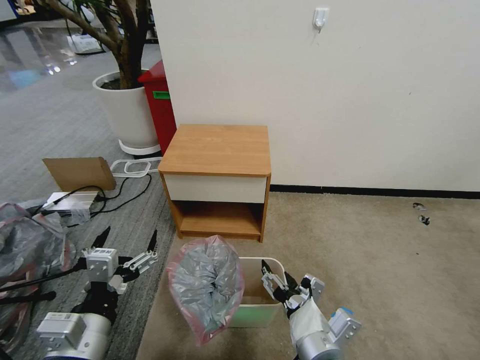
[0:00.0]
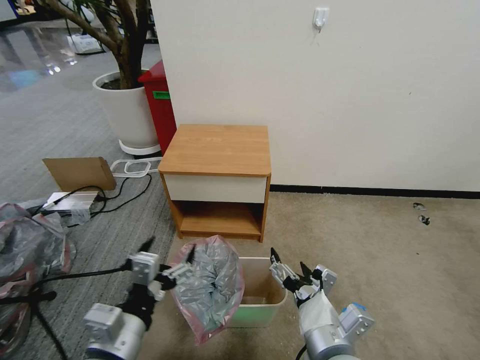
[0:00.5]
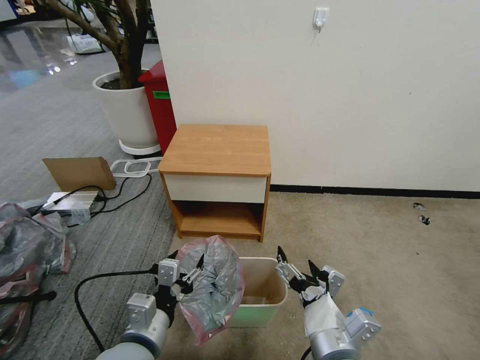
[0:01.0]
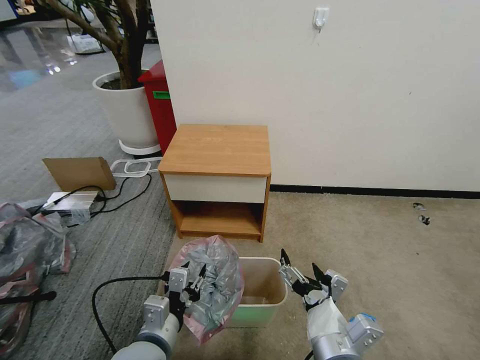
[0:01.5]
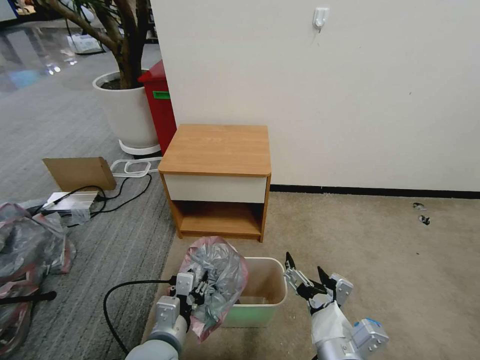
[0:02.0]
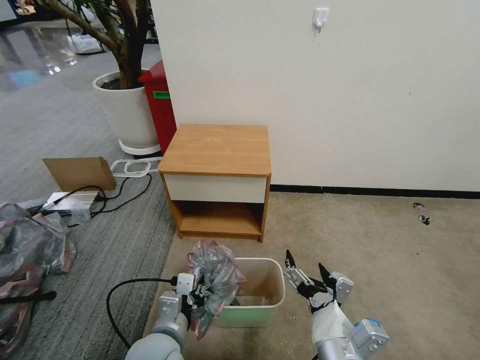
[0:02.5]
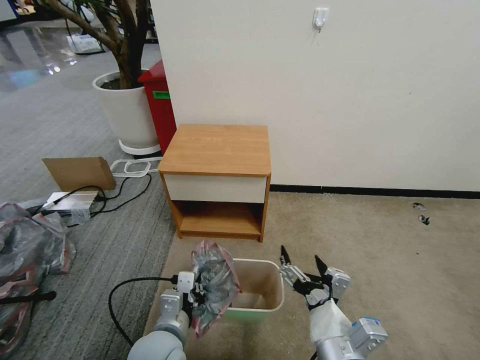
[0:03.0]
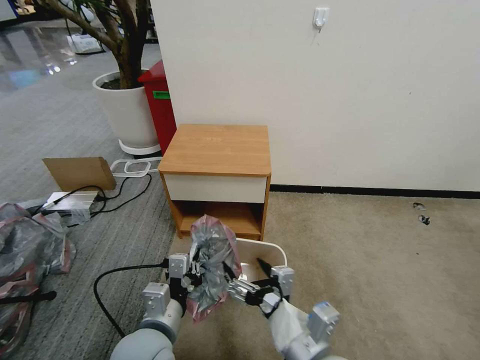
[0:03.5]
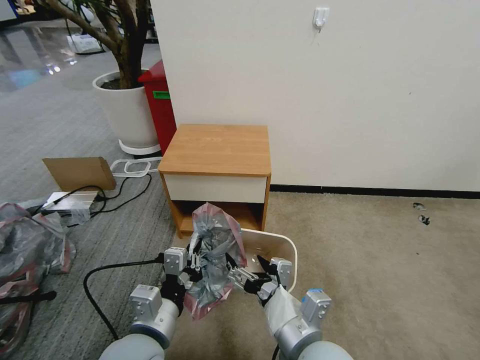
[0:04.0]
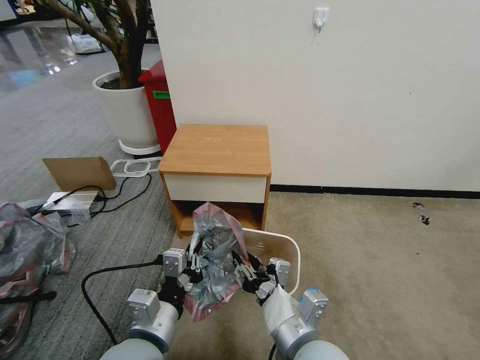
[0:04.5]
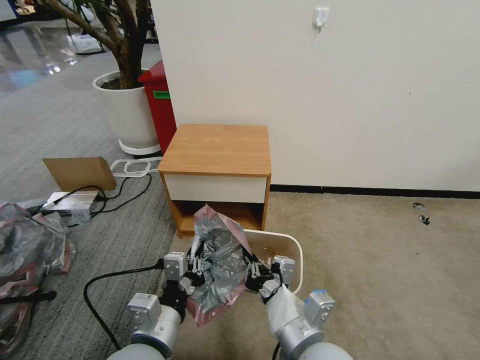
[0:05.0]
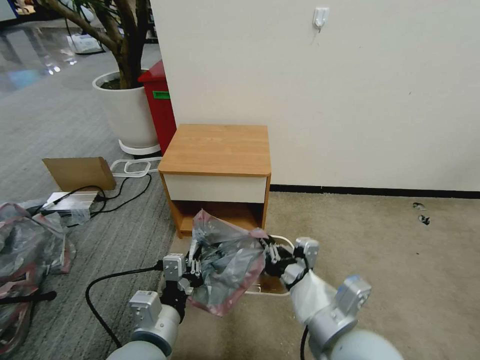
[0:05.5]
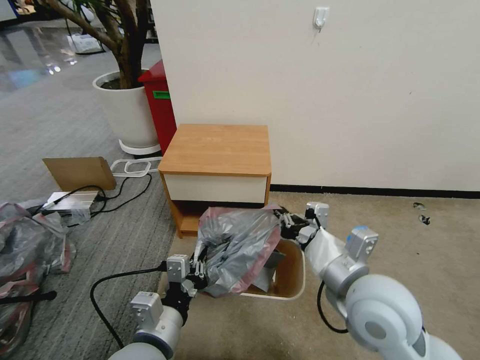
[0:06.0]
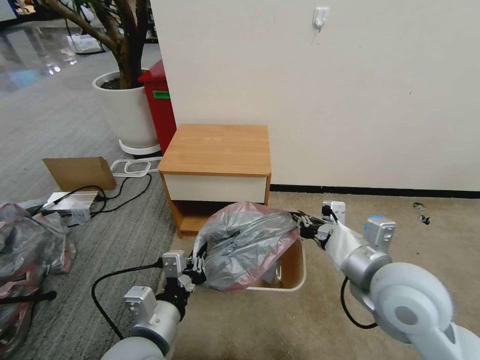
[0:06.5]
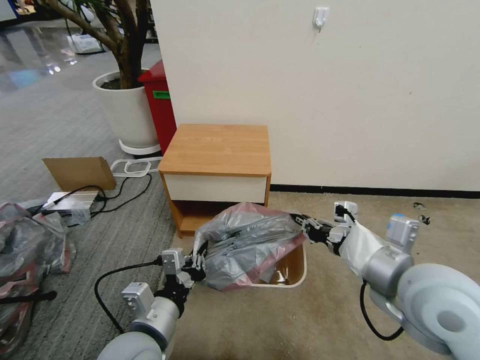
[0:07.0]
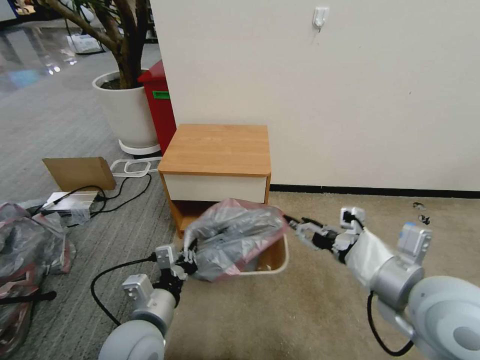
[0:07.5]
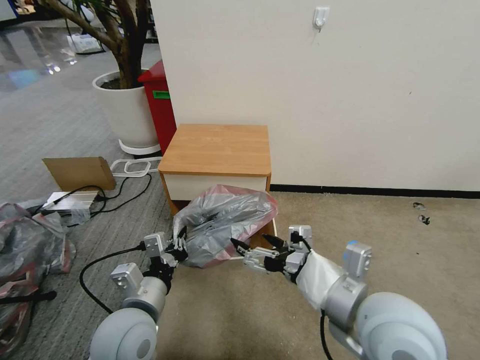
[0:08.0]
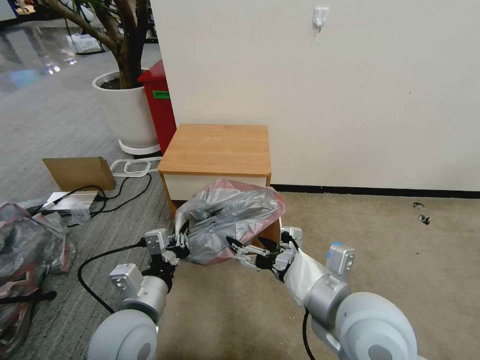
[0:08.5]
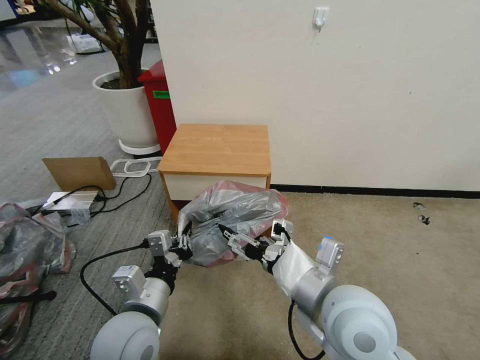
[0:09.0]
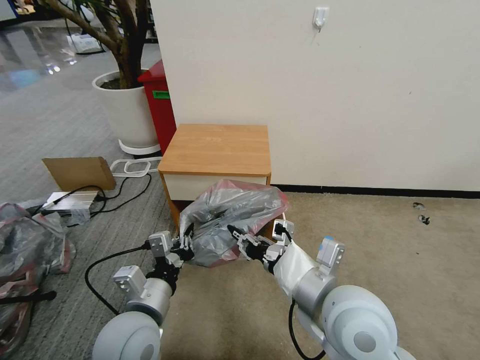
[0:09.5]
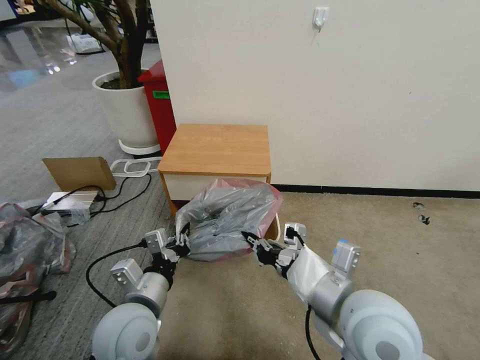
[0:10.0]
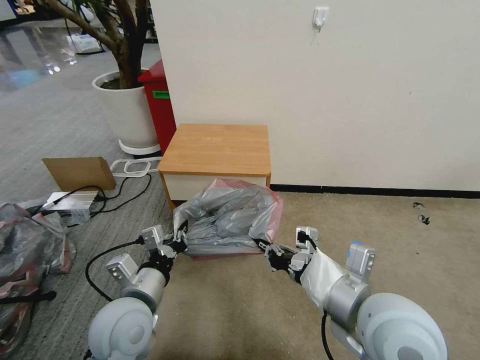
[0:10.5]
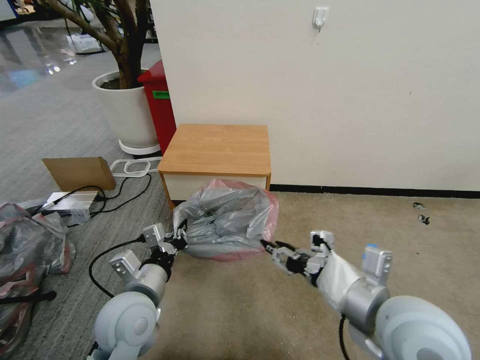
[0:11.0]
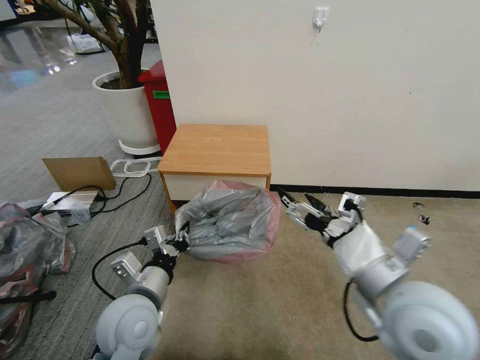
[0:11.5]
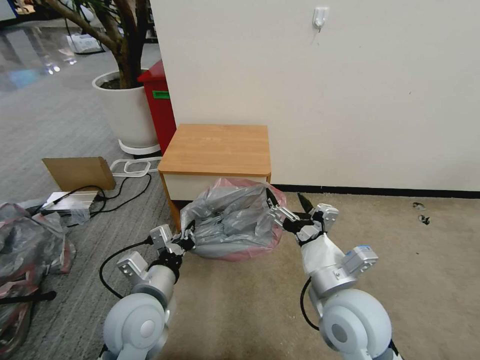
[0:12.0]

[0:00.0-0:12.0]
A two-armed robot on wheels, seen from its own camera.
Task of the whole recording: Pick up the garbage bag from the table and place it over the trash can.
0:00.0 to 0:02.0: The left gripper heads downward and to the right, covering approximately 15 cm, and closes.
0:02.0 to 0:04.0: The right gripper shifts by roughly 5 cm. Meanwhile the left gripper travels upward by about 10 cm, and closes.
0:04.0 to 0:06.0: The right gripper travels to the right, forward and upward by roughly 15 cm, and closes its fingers.
0:06.0 to 0:08.0: The right gripper opens up. The left gripper moves forward, about 5 cm.
0:08.0 to 0:10.0: The right gripper closes its fingers.
0:10.0 to 0:12.0: The right gripper travels downward by roughly 5 cm, and opens.

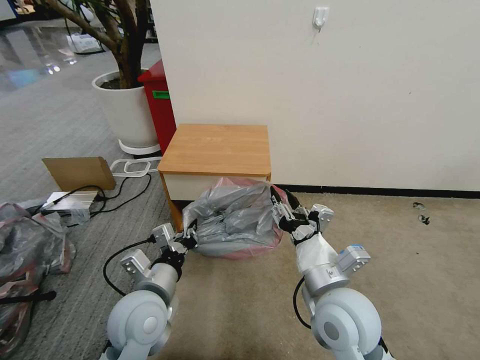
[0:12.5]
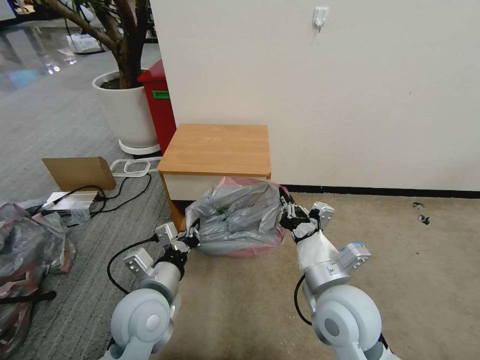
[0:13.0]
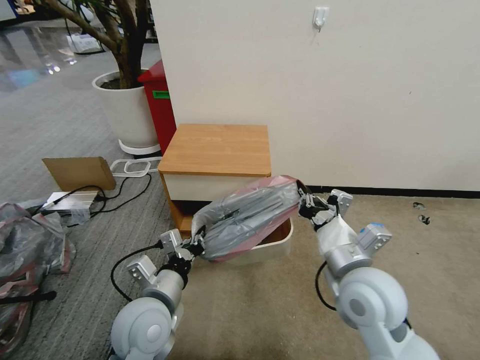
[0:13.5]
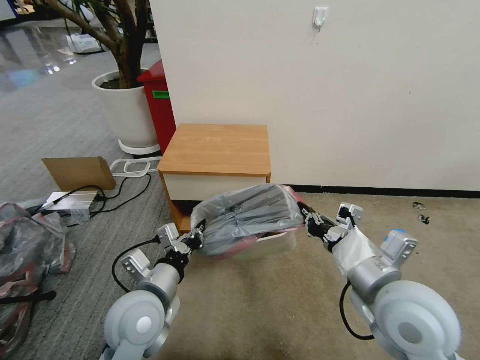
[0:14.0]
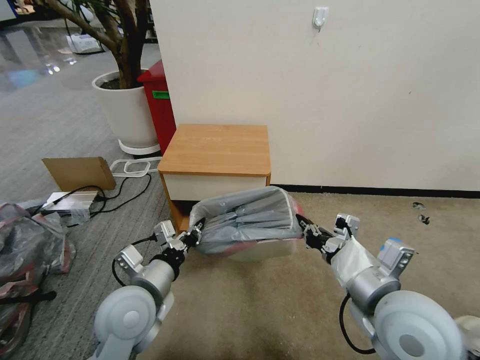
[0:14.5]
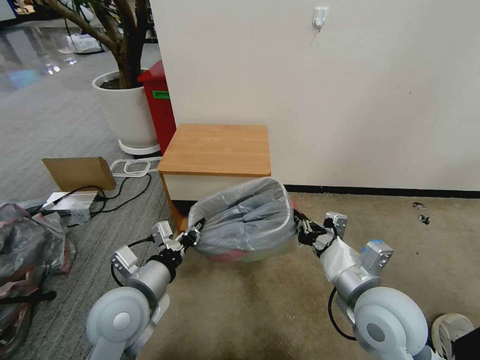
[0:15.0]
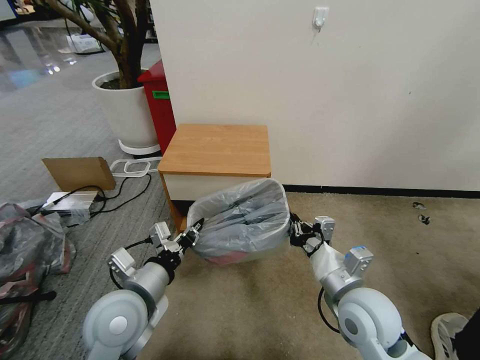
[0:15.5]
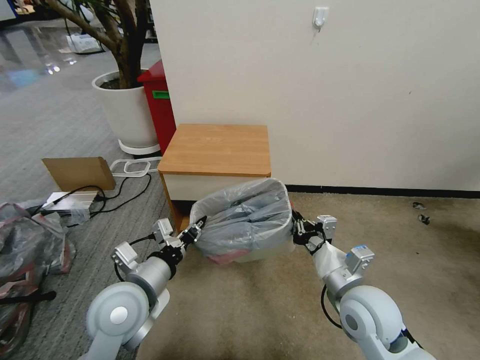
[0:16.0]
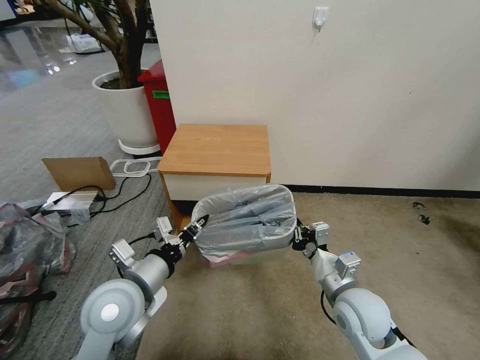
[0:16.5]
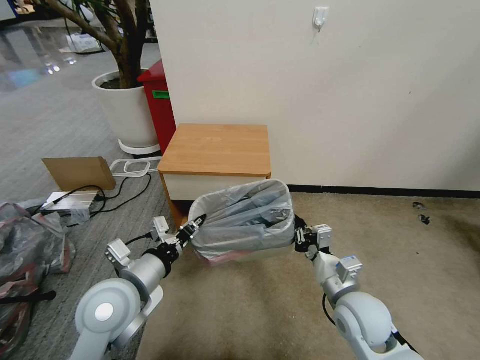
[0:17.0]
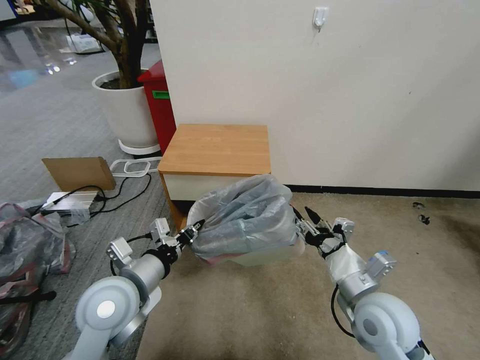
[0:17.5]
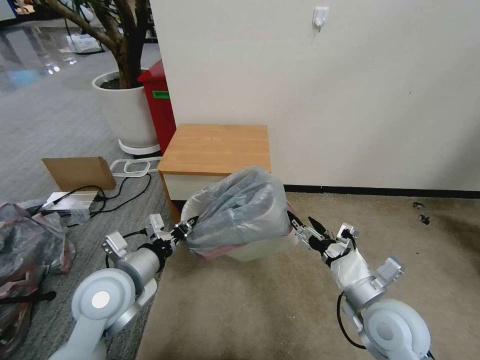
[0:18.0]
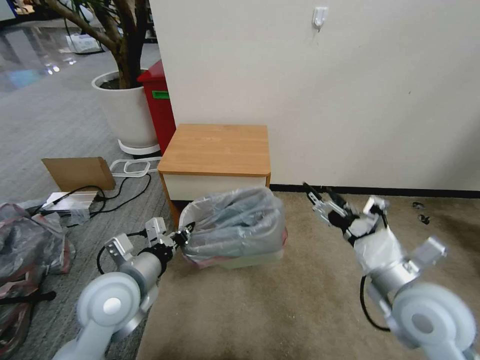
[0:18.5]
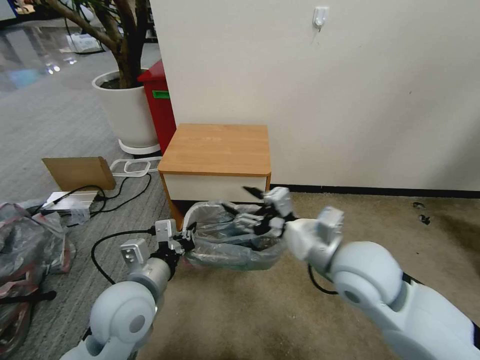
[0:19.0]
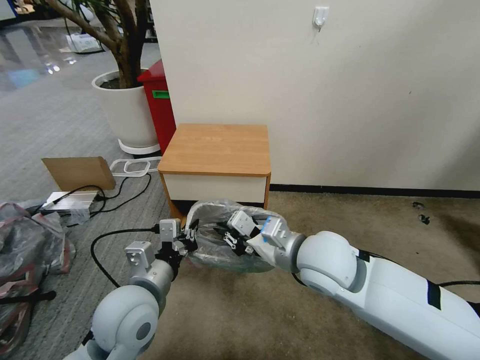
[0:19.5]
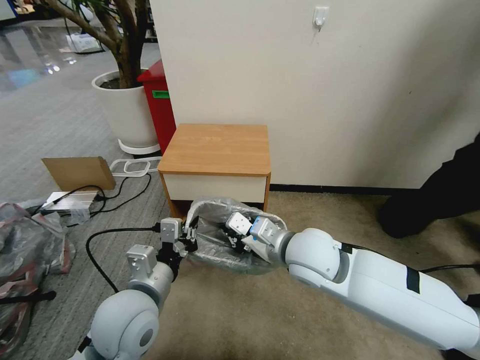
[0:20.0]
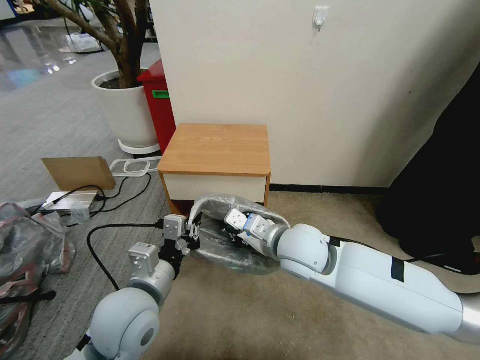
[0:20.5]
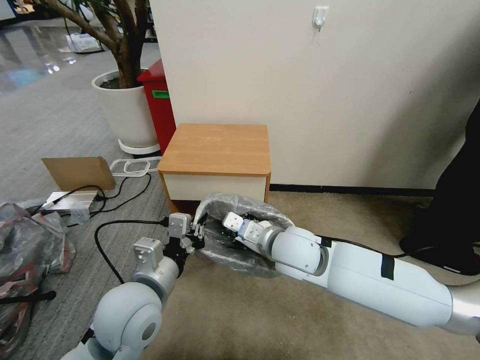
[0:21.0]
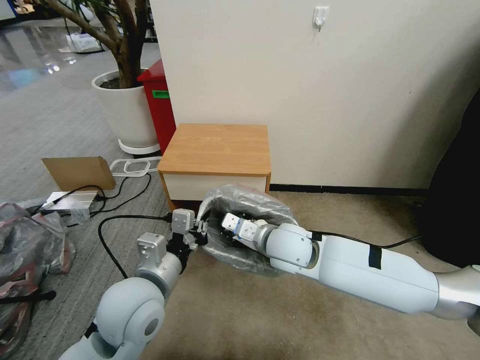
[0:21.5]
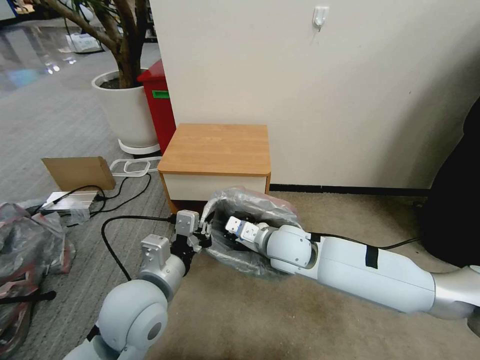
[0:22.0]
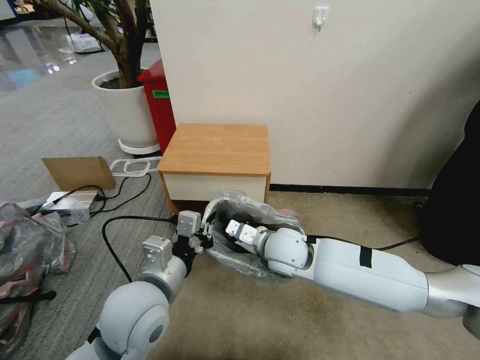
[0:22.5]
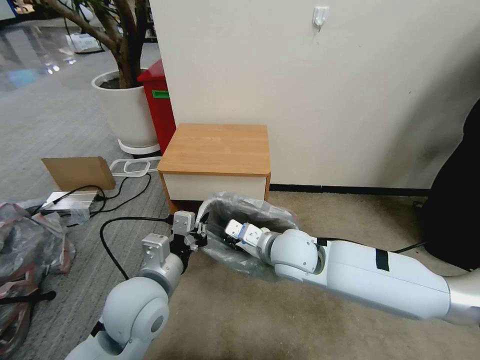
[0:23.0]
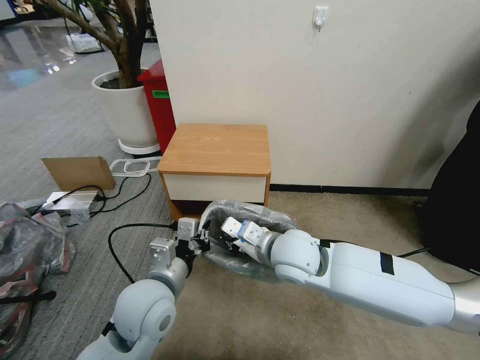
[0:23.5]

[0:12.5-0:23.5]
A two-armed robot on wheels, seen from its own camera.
Task of the whole recording: Pick up the garbage bag from the table and place it over the trash can.
0:12.5 to 0:14.5: The right gripper heads to the right and upward, covering some 10 cm, and closes.
0:14.5 to 0:16.0: The right gripper moves downward, about 10 cm.
0:16.0 to 0:18.0: The right gripper opens up.
0:18.0 to 0:20.0: The left gripper ends up about 5 cm from where it was. Meanwhile the right gripper travels to the left, forward and upward by about 20 cm, and closes.
0:20.0 to 0:21.5: The right gripper ends up some 5 cm from where it was.
0:21.5 to 0:23.5: There are only small adjustments of the grippers.

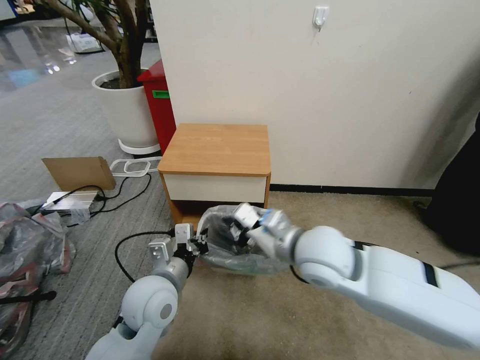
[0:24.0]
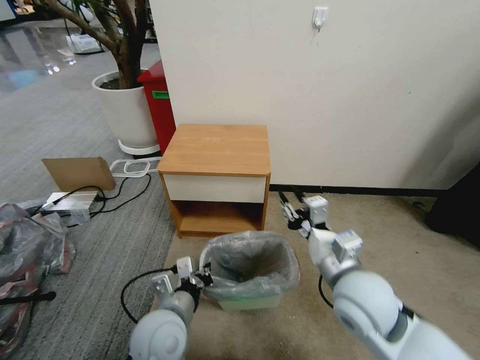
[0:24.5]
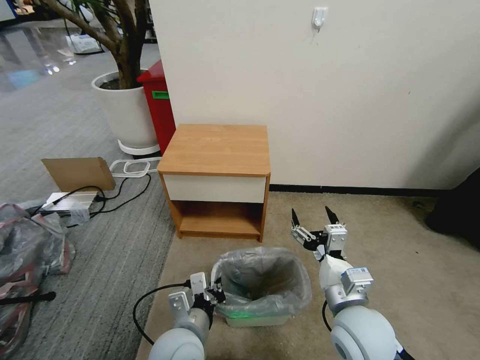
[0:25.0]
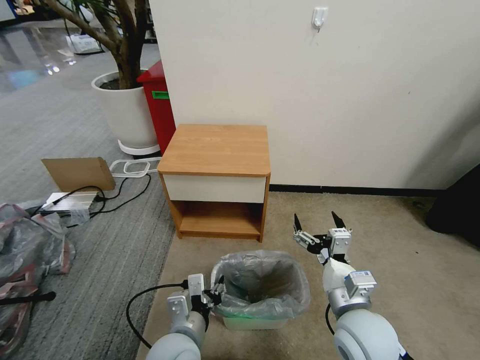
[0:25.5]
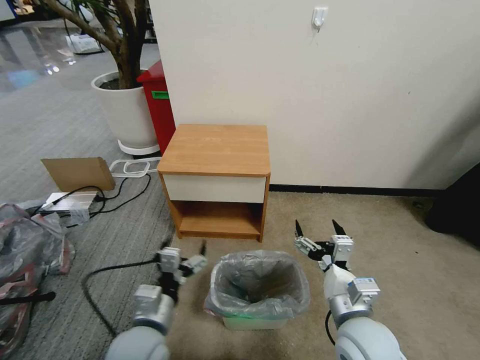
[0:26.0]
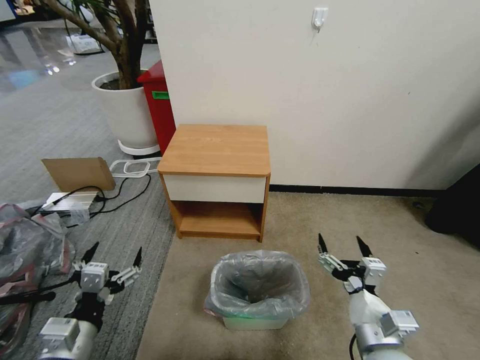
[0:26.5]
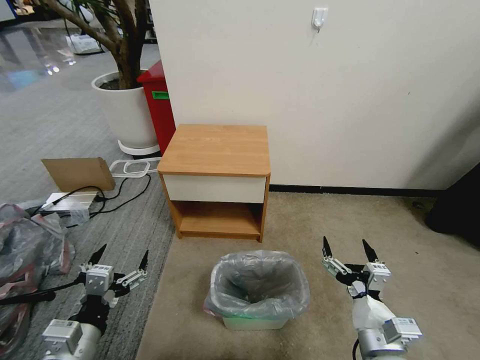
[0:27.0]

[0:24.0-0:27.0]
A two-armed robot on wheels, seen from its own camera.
Task of the whole recording: Pick up the garbage bag from the table and place it over the trash can.
0:24.0 to 0:25.5: The left gripper travels backward and downward by roughly 10 cm, and opens. Meanwhile the right gripper moves downward, backward and to the right, approximately 15 cm, and opens up.
0:25.5 to 0:27.0: The left gripper goes roughly 15 cm to the left, and opens, while the right gripper shifts about 5 cm backward.
